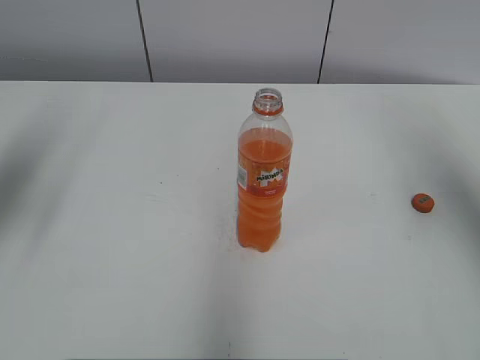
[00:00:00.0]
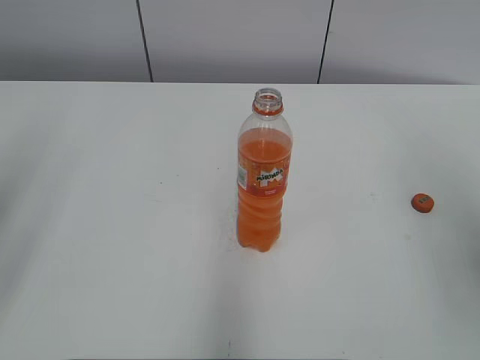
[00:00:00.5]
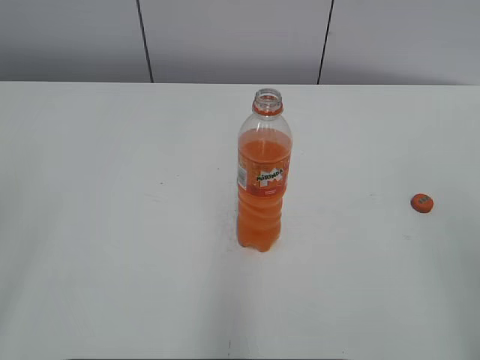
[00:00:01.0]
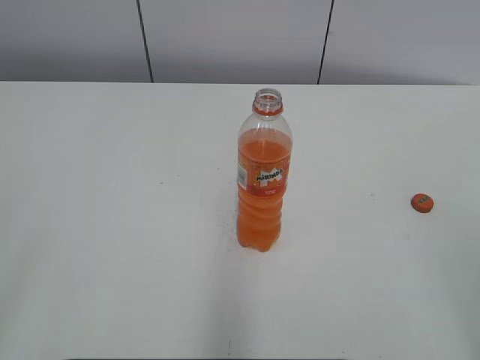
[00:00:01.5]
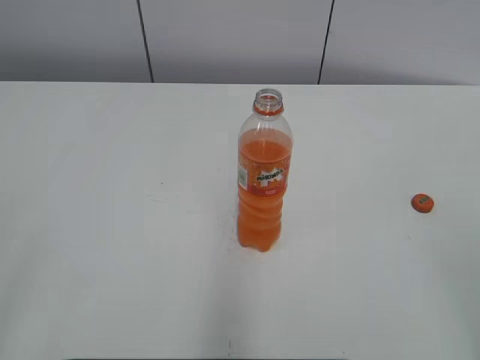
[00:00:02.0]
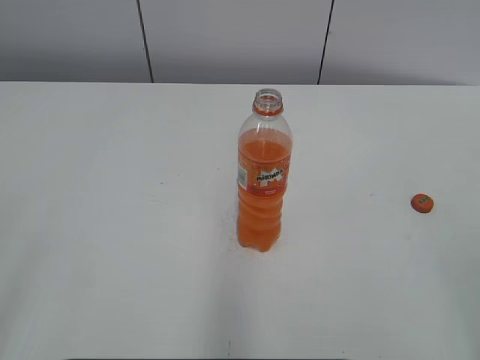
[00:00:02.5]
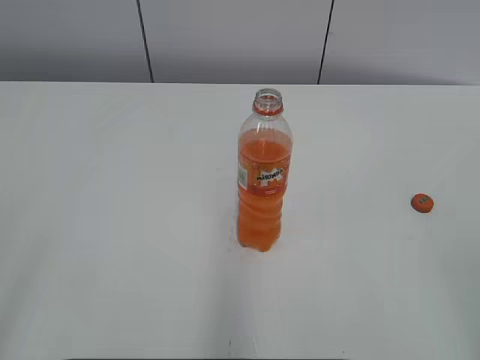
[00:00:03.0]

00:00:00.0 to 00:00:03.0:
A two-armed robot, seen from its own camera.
00:00:00.0 to 00:00:01.5: The grippers both shift backward by some 25 cm.

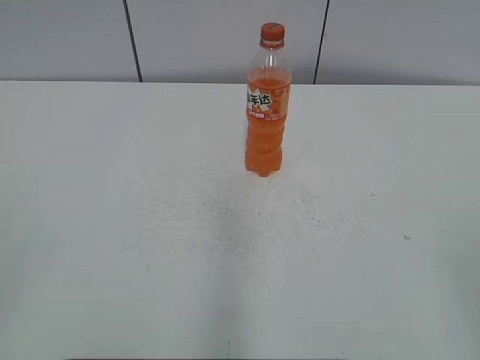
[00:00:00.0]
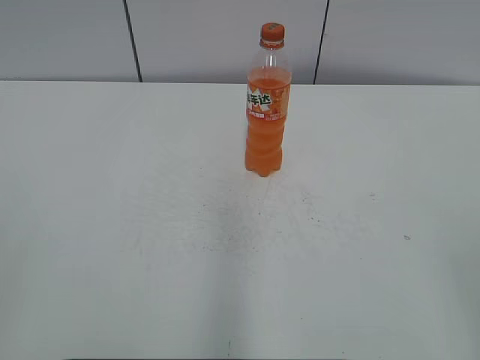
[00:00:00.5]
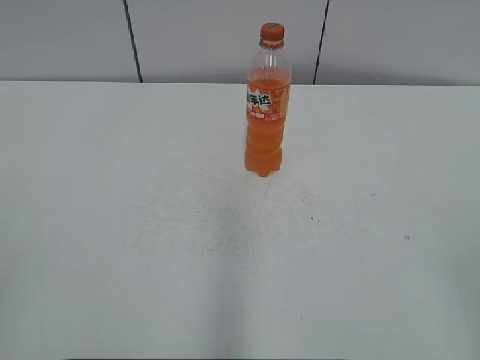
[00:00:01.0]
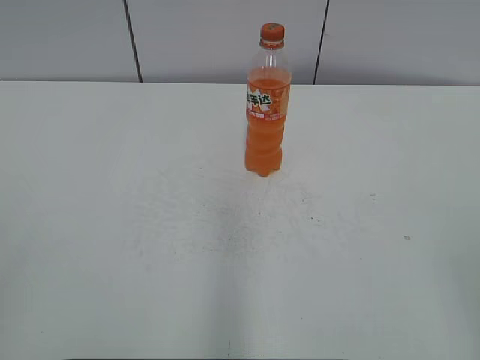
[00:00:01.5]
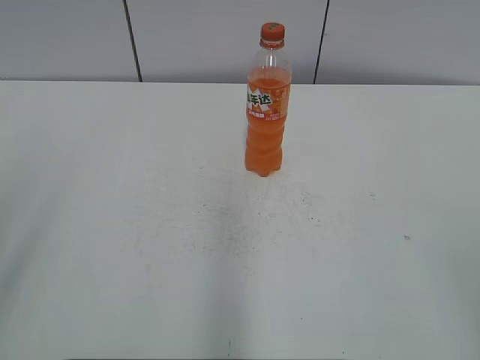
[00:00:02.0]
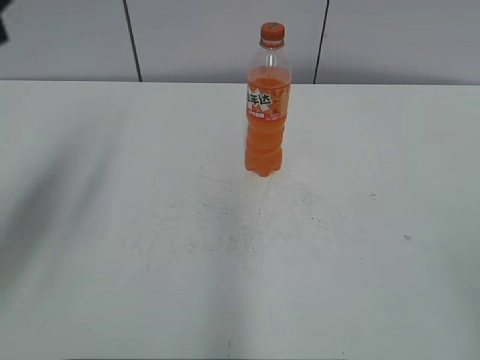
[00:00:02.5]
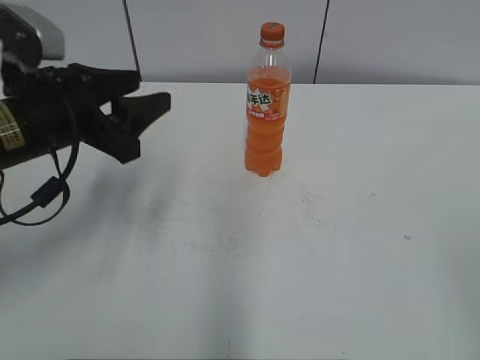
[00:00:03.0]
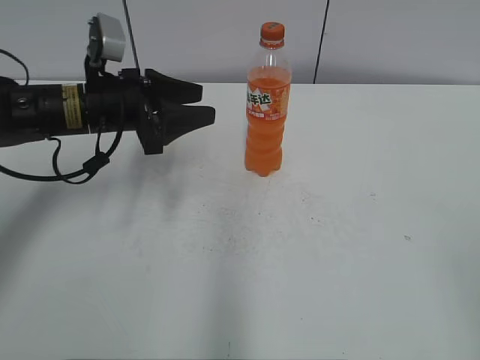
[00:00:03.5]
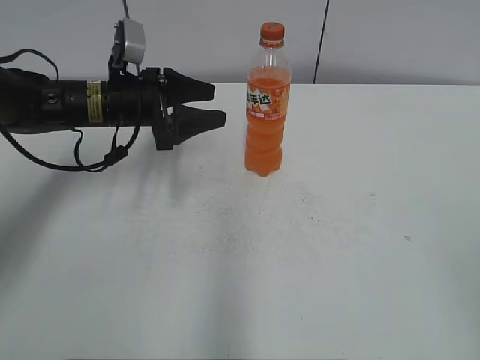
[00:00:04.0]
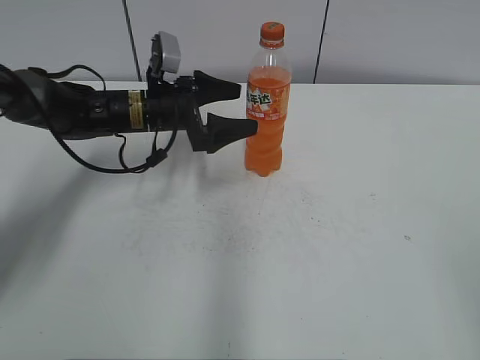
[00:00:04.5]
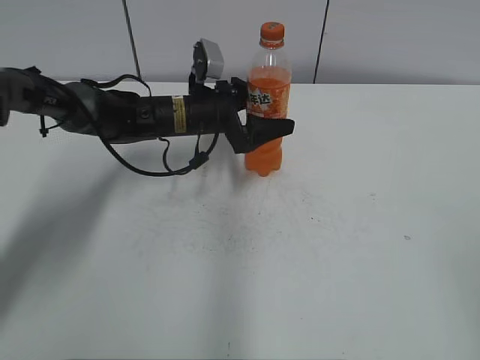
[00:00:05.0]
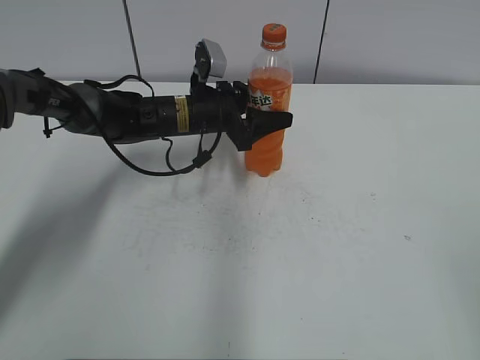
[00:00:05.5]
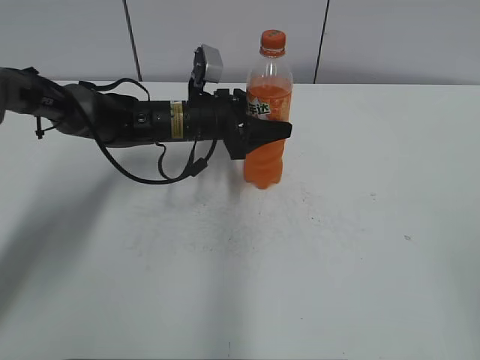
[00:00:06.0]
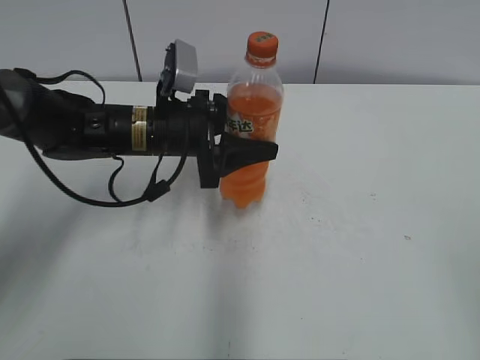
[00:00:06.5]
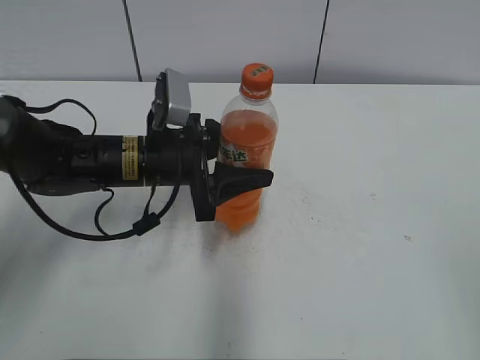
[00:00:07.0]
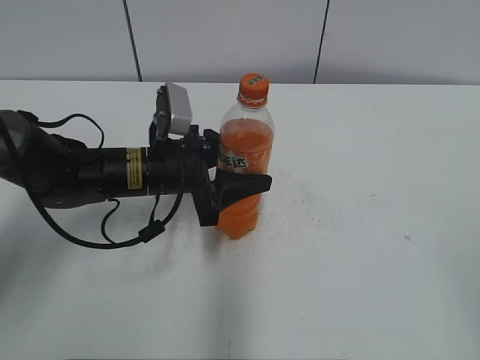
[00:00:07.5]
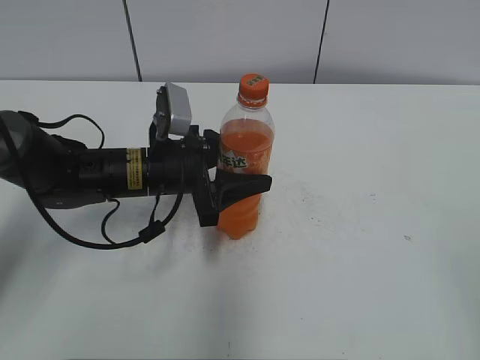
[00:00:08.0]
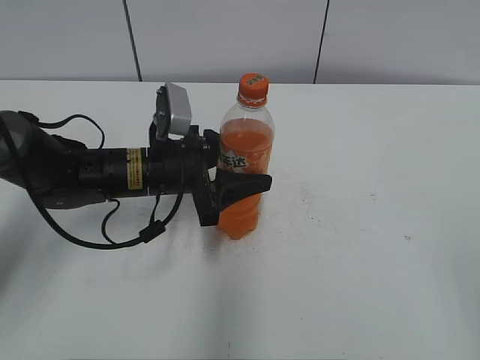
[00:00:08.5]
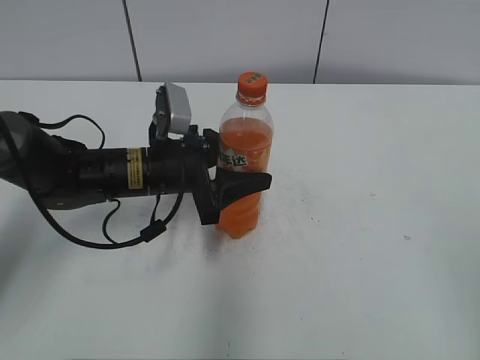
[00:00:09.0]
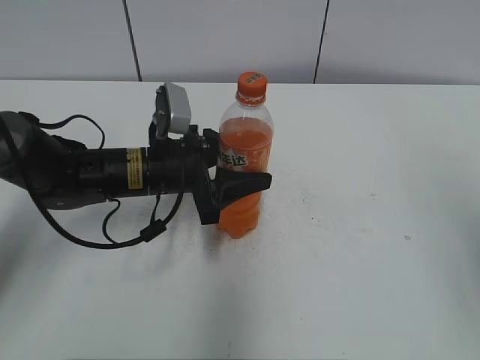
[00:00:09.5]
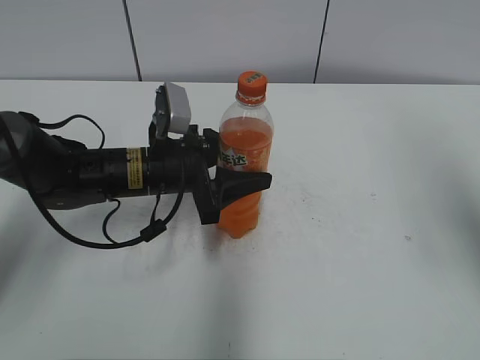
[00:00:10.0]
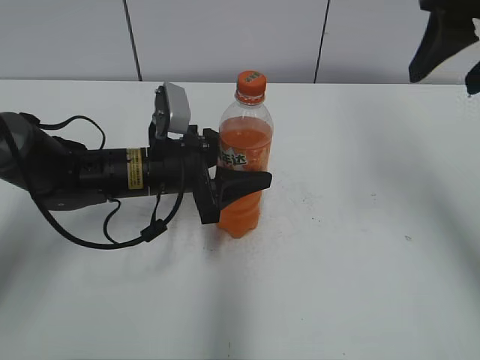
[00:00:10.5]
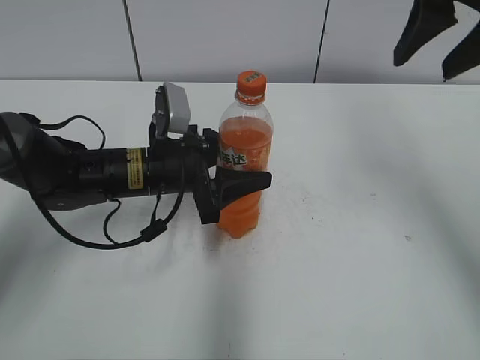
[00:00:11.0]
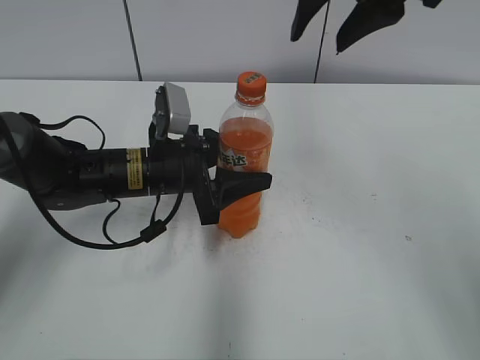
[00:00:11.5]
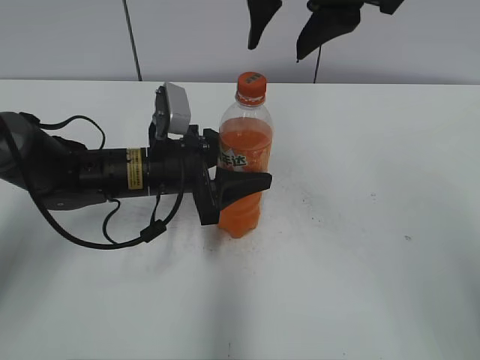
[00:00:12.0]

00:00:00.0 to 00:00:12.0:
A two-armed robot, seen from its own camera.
Step, 00:00:00.0 to 00:00:05.5: Grab the Mirinda with the left hand.
Step, 00:00:06.0 to 00:00:09.5: Move the Mirinda from top to bottom.
00:00:02.0 to 00:00:04.0: The left gripper goes roughly 40 cm forward and downward.
00:00:04.0 to 00:00:06.0: The left gripper shifts about 10 cm to the right, and opens and closes again.
00:00:06.0 to 00:00:08.0: The left gripper is displaced backward by approximately 10 cm.
00:00:08.0 to 00:00:10.0: The right gripper travels forward and upward by roughly 20 cm.
00:00:10.0 to 00:00:12.0: The right gripper is displaced to the left and forward by some 25 cm, and closes its fingers.

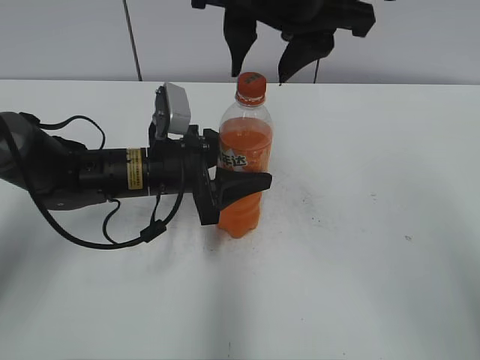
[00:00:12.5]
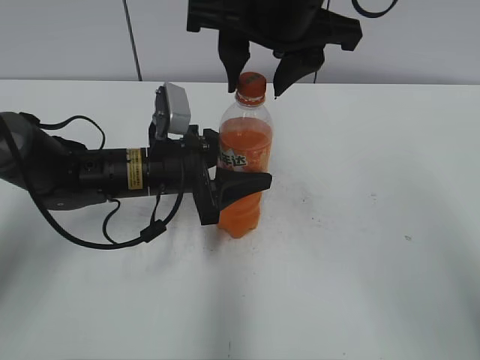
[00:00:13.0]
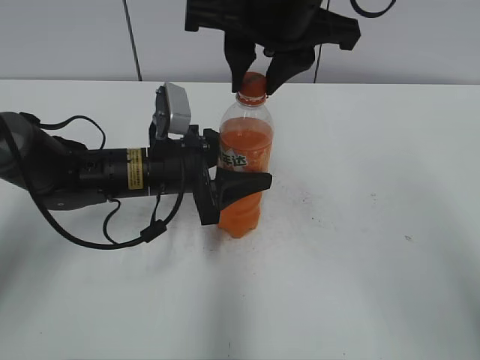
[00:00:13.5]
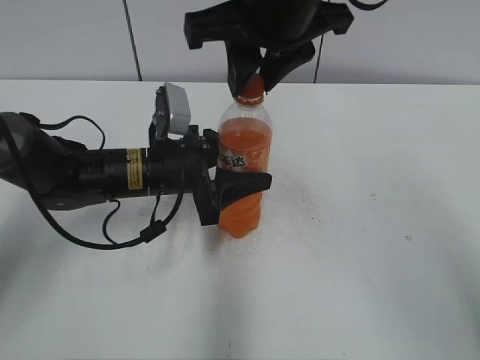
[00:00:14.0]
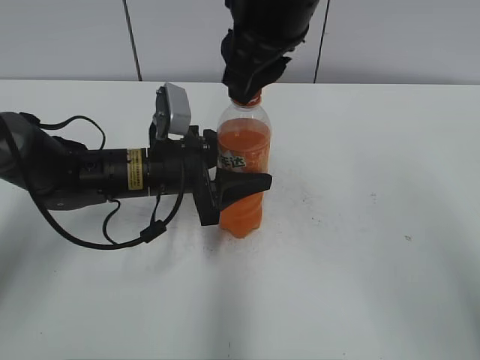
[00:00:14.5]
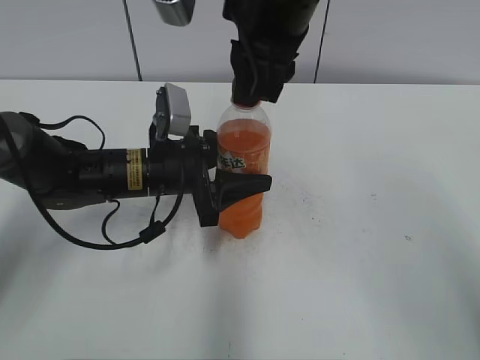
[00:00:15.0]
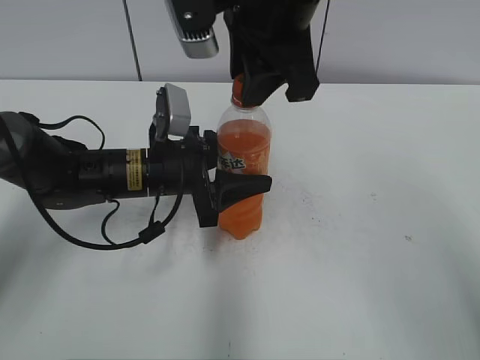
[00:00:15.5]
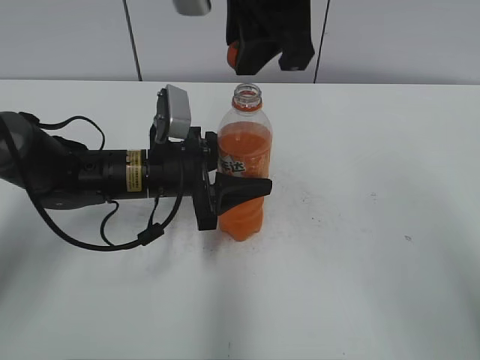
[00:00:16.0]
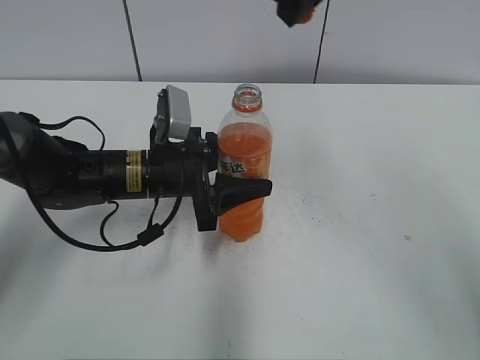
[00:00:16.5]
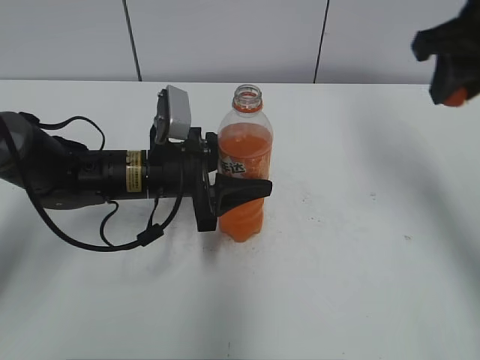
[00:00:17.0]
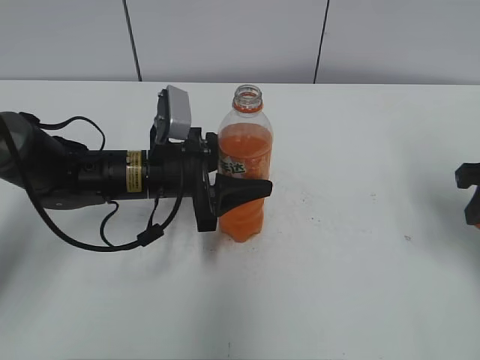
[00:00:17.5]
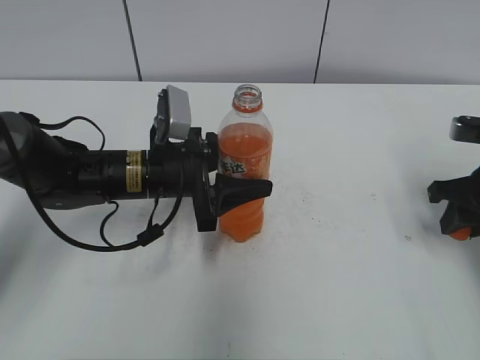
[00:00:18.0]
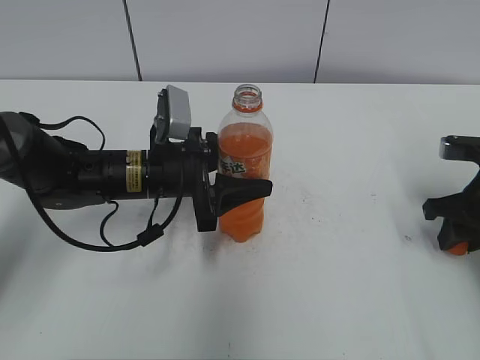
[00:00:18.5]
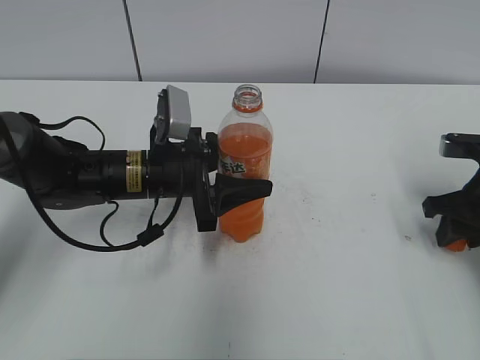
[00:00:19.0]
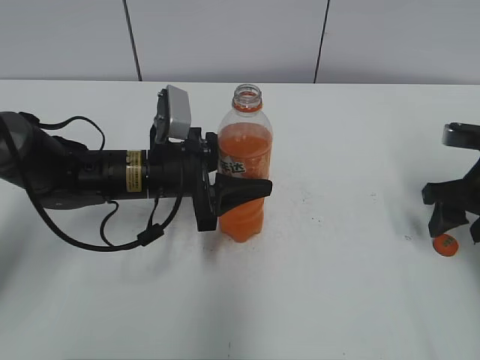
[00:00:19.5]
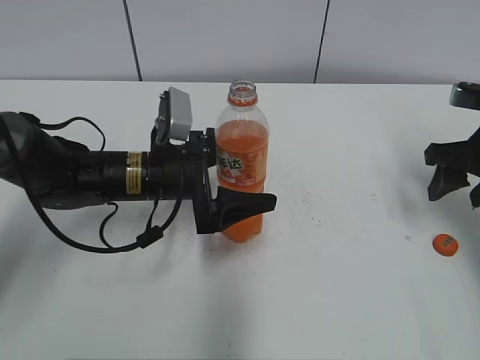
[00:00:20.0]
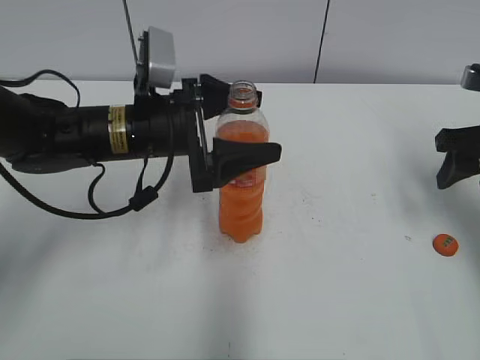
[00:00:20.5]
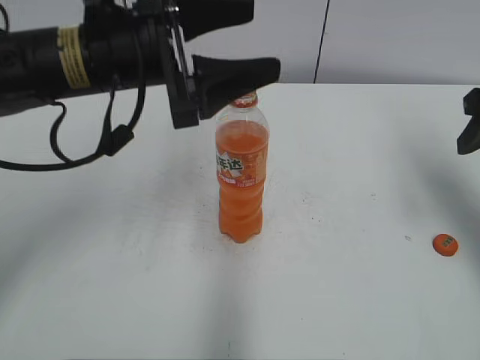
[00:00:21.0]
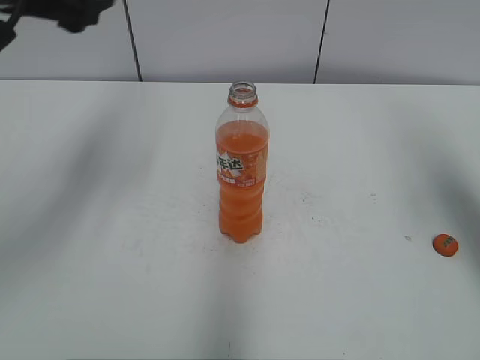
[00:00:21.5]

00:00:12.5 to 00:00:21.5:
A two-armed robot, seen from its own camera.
Step, 00:00:16.0 to 00:00:19.0: Place the bottle cap on the right.
00:00:12.5 to 00:00:14.5: The right gripper closes.
00:00:14.5 to 00:00:17.0: The right gripper goes about 20 cm to the right.
00:00:17.0 to 00:00:19.5: The right gripper moves downward and to the right, about 20 cm, and opens up.
00:00:19.5 to 00:00:21.5: Both grippers travel together upward, some 20 cm. The left gripper opens.

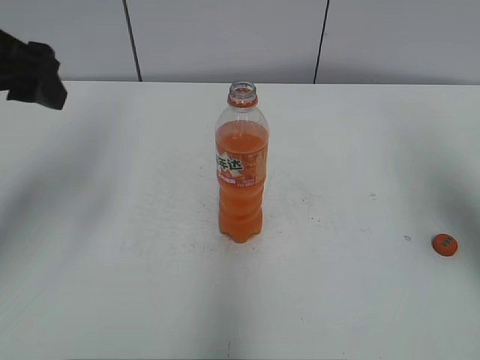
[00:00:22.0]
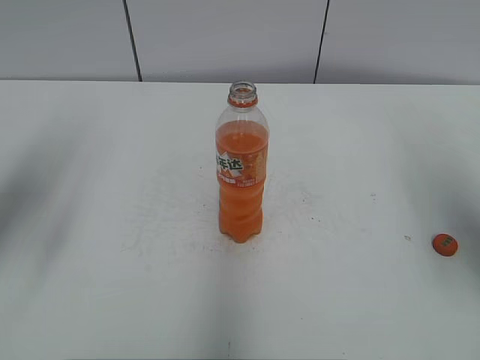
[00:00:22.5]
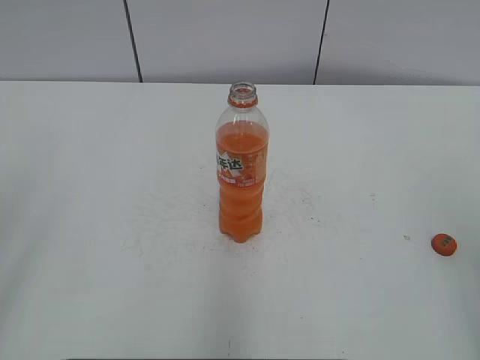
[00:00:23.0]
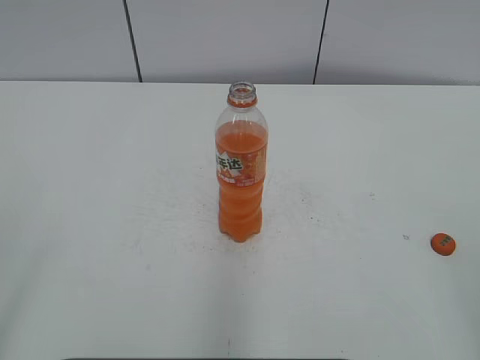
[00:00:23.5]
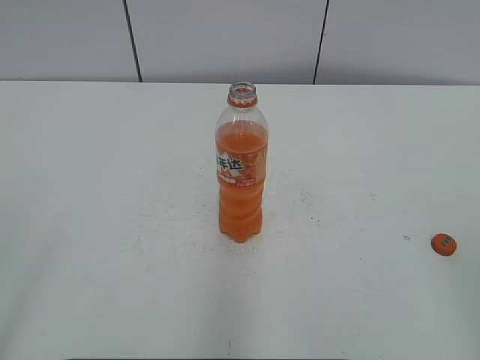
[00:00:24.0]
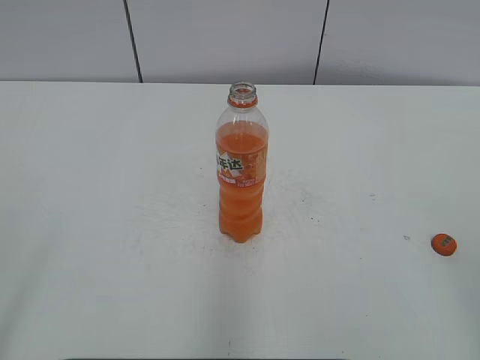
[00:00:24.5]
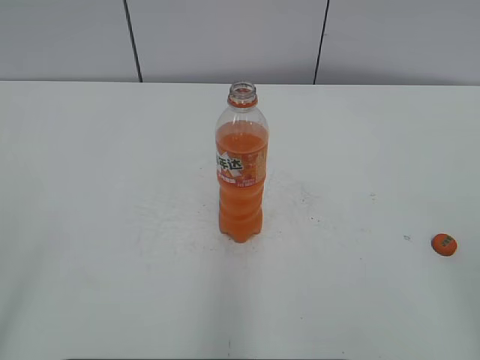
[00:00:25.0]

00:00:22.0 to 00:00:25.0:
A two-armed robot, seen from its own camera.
00:00:22.0 to 00:00:23.5: The two grippers go some 25 cm backward.
